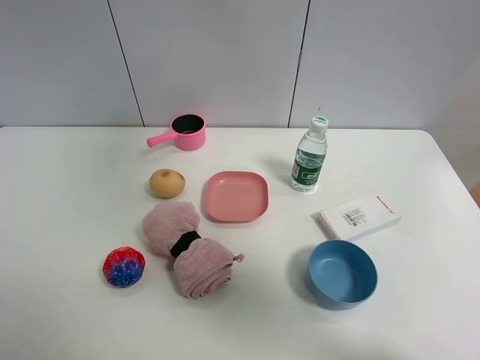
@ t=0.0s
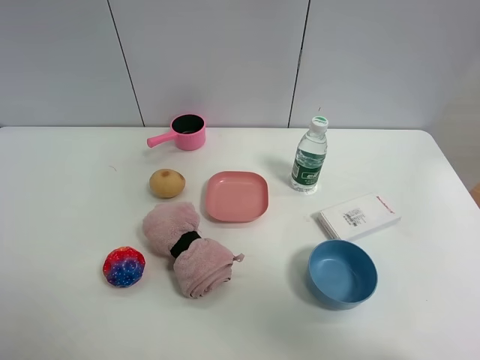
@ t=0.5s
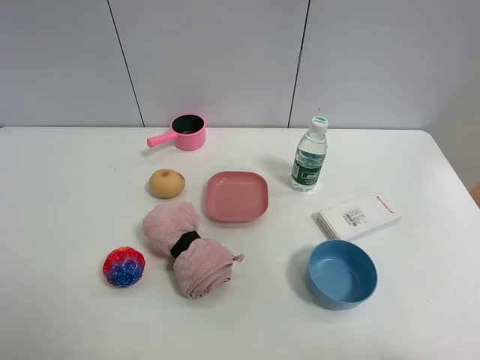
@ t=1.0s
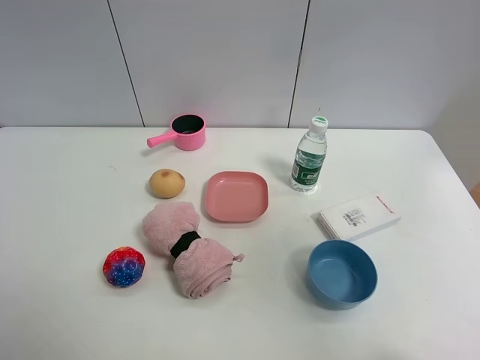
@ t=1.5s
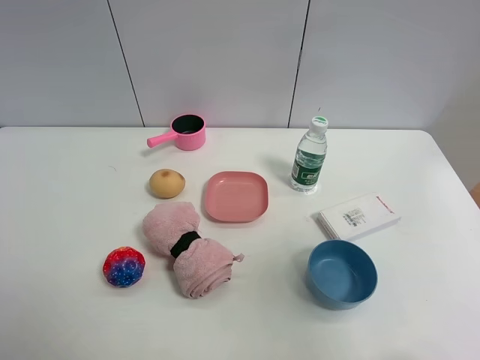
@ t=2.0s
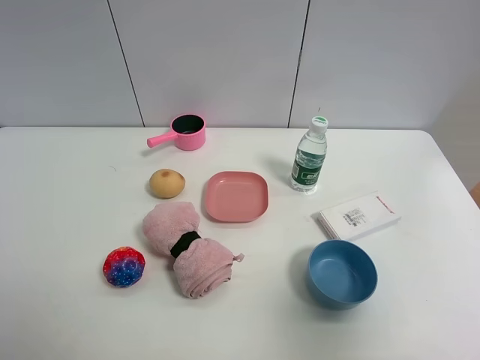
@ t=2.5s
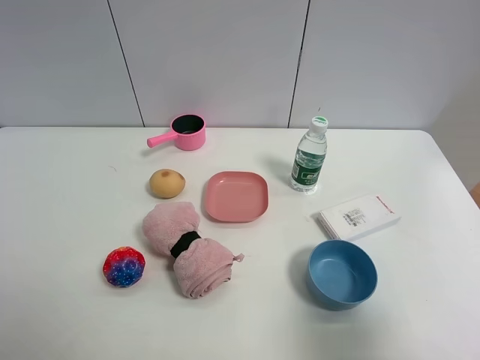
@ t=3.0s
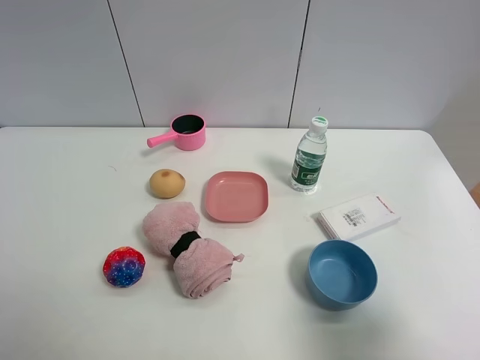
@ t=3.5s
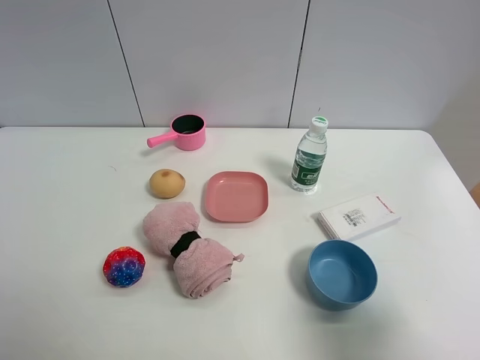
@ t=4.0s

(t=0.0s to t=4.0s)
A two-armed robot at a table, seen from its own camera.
Task of the whole recording: the gripper move the object.
t=0.0s - t=2.0s: The right gripper goes some 35 cm backward, to the right and downward.
t=2.0s - t=4.0s: The right gripper goes roughly 15 cm downward.

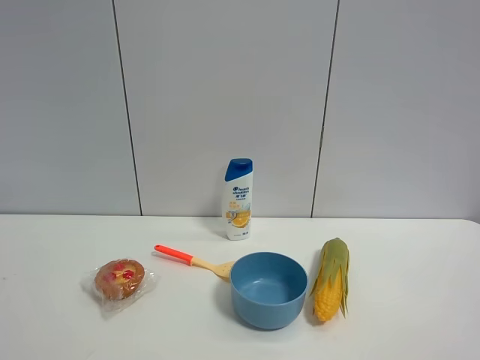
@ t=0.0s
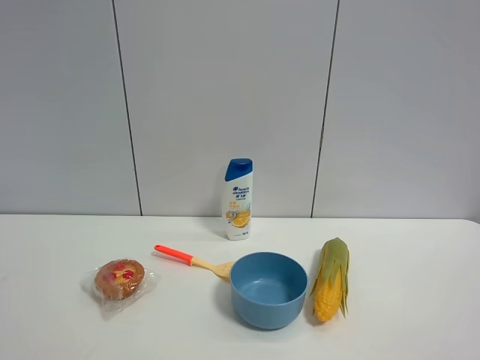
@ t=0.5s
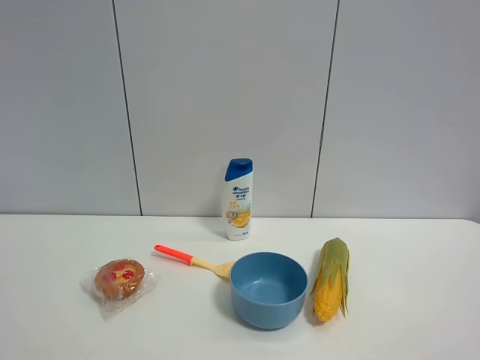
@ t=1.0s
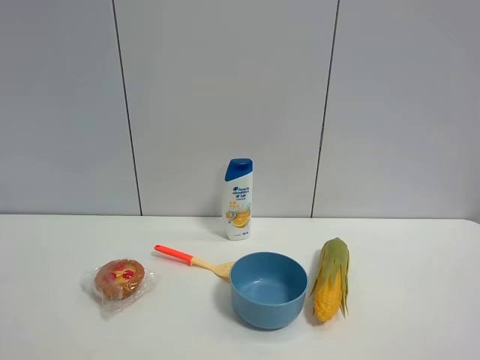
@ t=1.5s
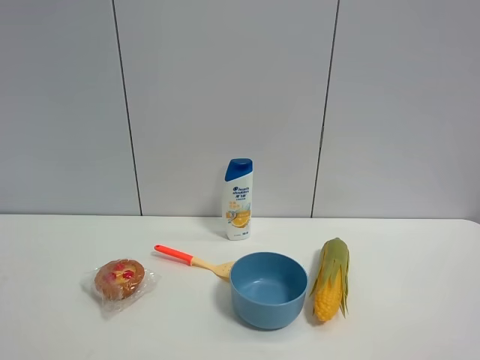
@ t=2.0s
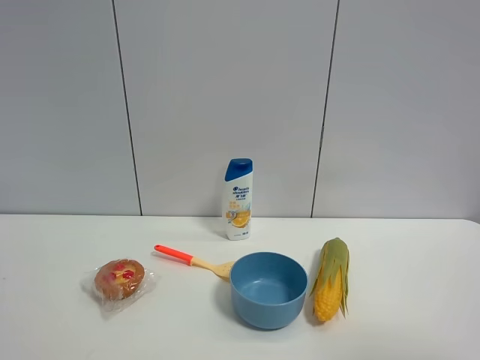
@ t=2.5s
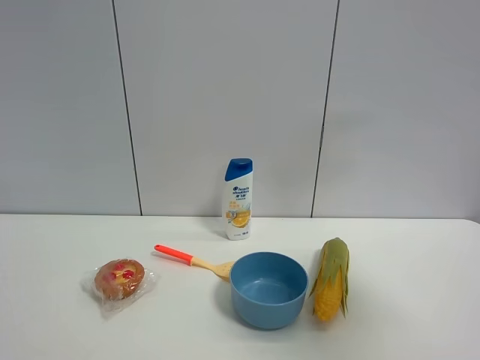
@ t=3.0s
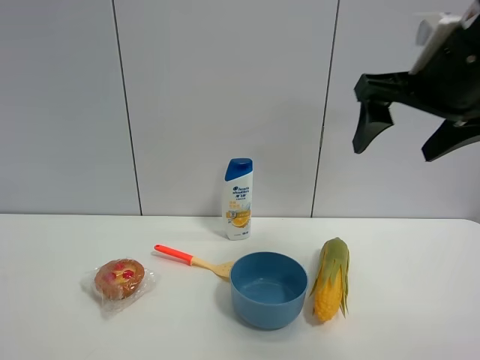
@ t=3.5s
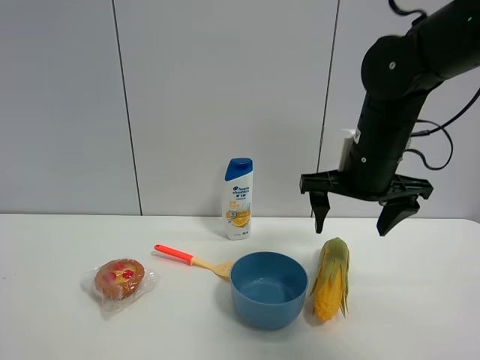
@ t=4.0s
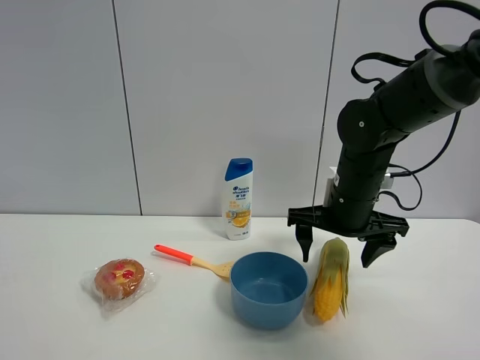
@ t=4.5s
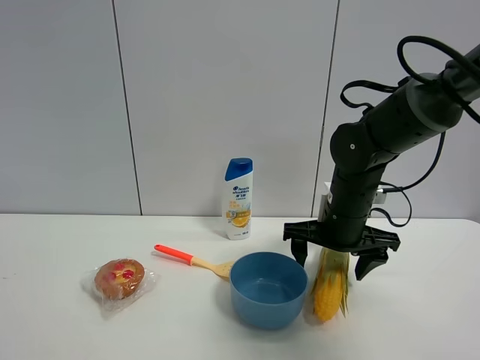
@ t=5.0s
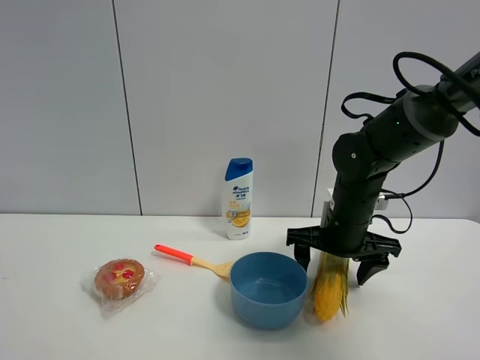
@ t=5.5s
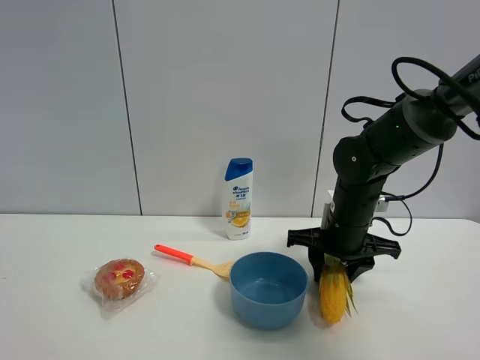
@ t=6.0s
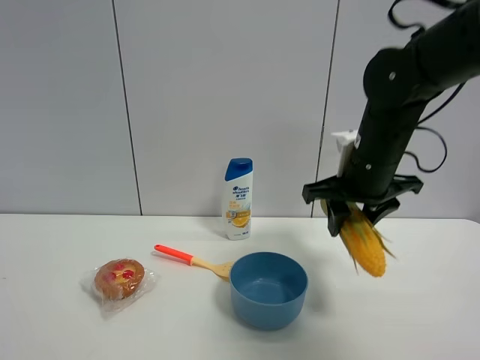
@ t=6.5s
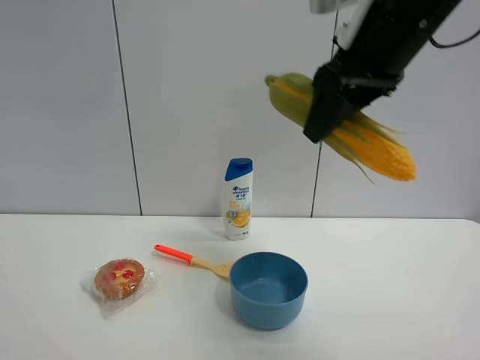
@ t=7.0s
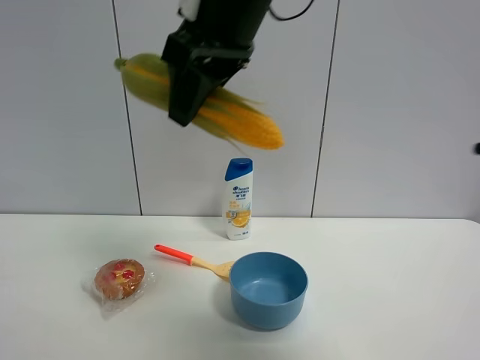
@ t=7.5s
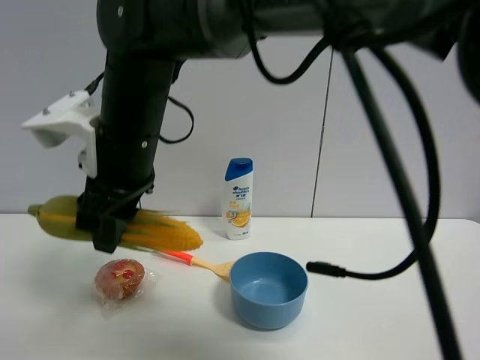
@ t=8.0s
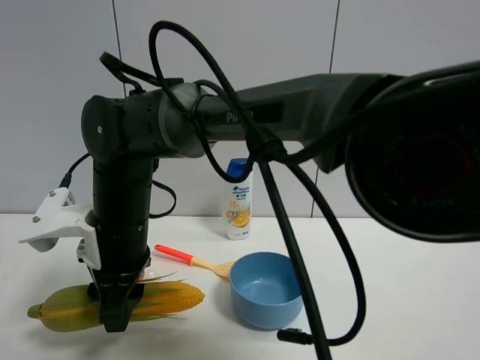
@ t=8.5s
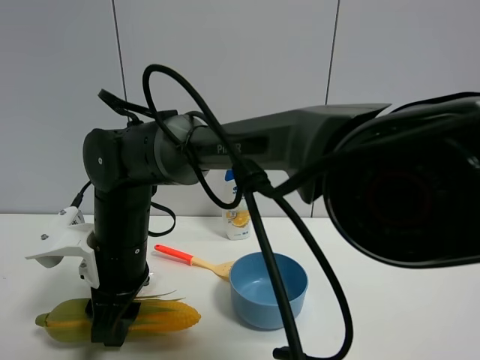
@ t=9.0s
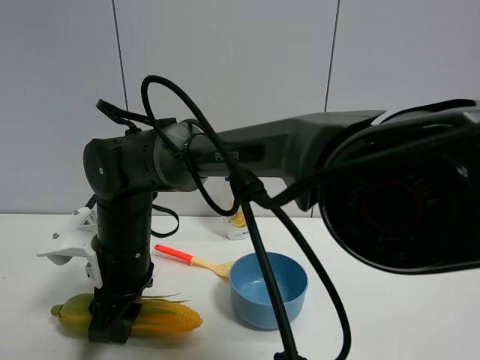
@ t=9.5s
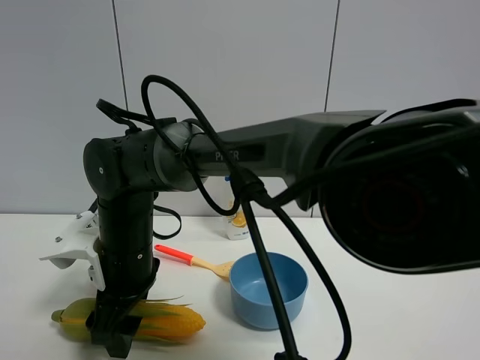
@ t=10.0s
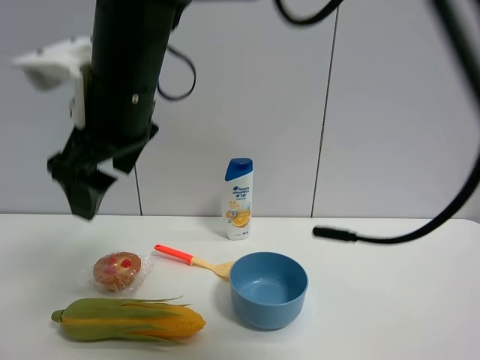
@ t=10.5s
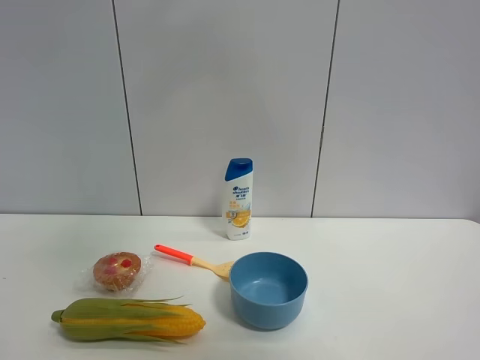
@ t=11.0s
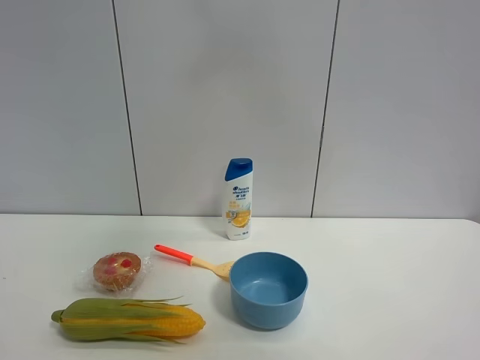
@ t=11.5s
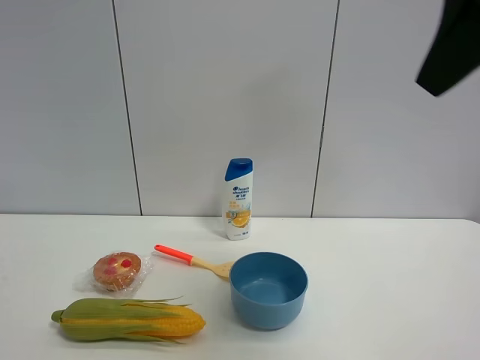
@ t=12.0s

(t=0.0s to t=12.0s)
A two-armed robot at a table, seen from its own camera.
Task of the whole recording: the gripper move the object.
Step, t=0.0s - t=6.0s: Grasp the corn with the right gripper.
Step, t=6.5s - t=10.0s: Place the corn on the table with the right gripper.
t=0.0s - t=2.0s: Both grippers stay put.
t=2.0s - t=4.0s: The right gripper goes approximately 40 cm forward and to the left.
t=4.0s - t=6.0s: The right gripper travels downward by approximately 10 cm, and closes its fingers.
t=6.0s - t=8.0s: The right gripper goes about 30 cm to the left and upward.
t=8.0s - t=10.0s: The right gripper is displaced downward by some 10 cm, and opens its fingers.
t=10.0s - t=12.0s: The right gripper is displaced to the right, upward and backward by roughly 50 cm.

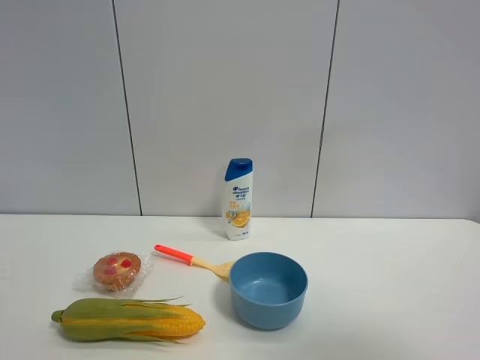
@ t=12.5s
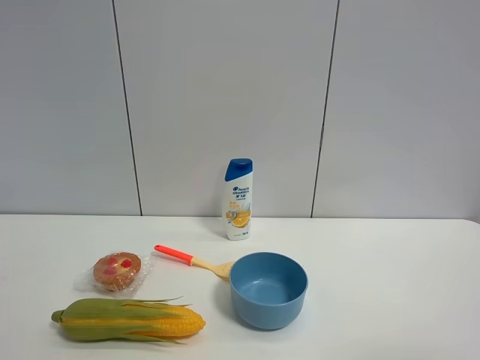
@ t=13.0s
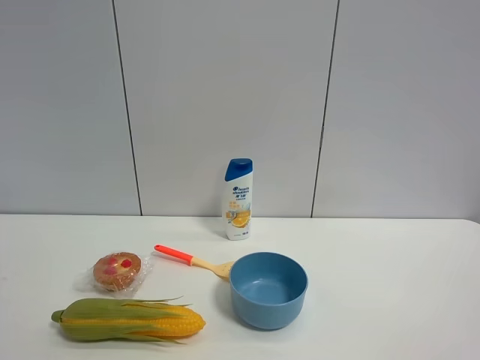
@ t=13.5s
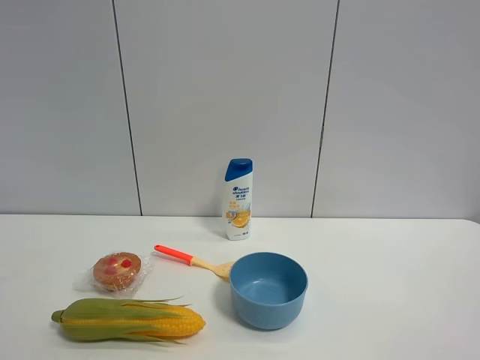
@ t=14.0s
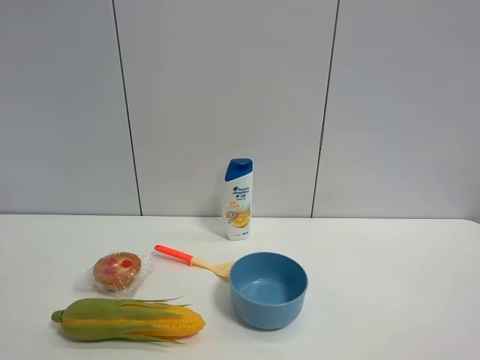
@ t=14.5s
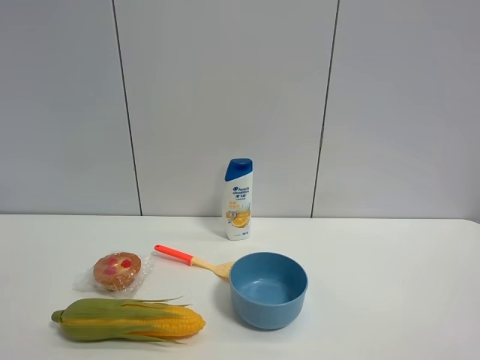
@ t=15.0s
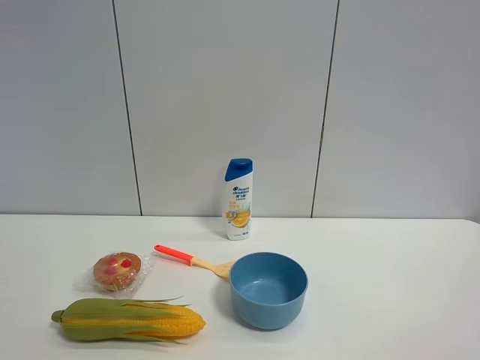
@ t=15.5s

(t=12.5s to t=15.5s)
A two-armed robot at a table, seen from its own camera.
Task of the whole recording: the gripper move the object.
t=12.5s - t=14.0s: The right gripper travels downward and backward by about 10 cm.

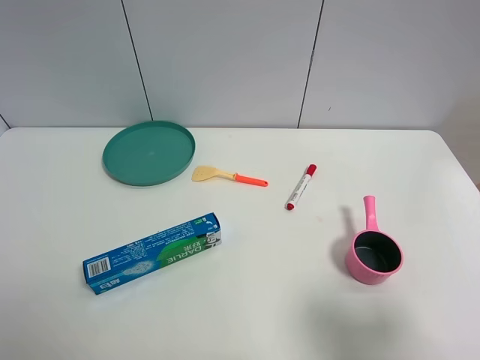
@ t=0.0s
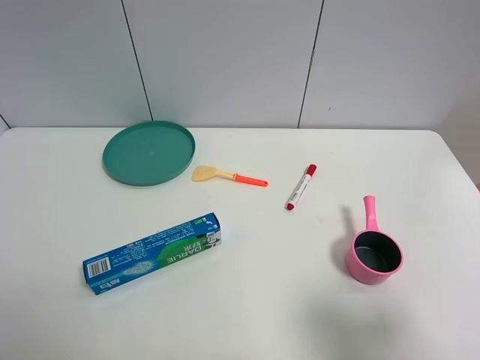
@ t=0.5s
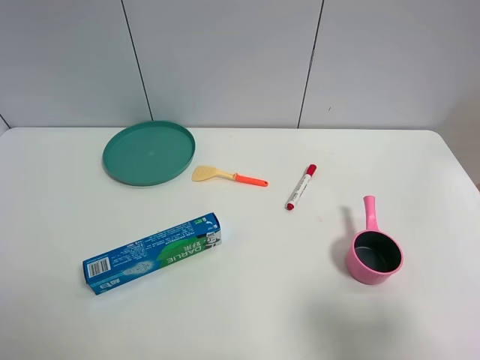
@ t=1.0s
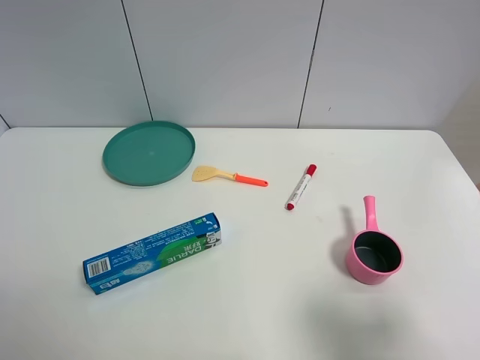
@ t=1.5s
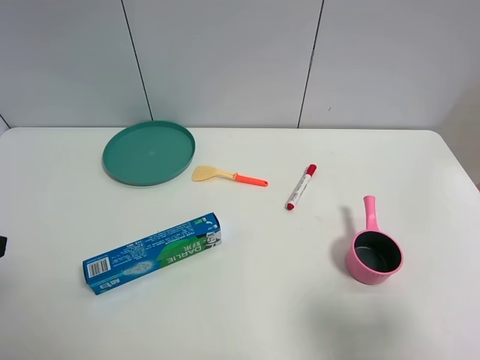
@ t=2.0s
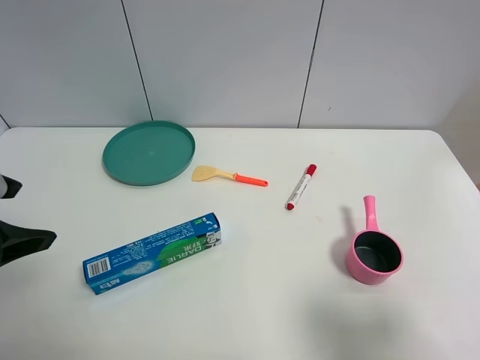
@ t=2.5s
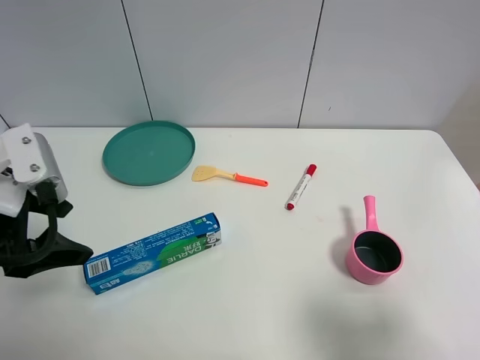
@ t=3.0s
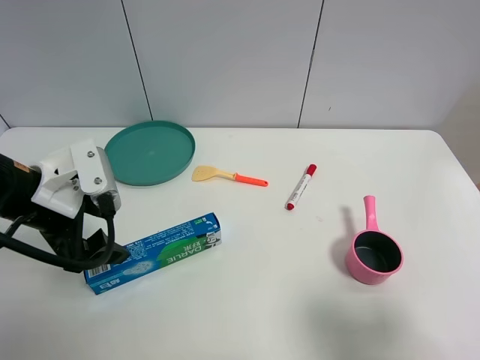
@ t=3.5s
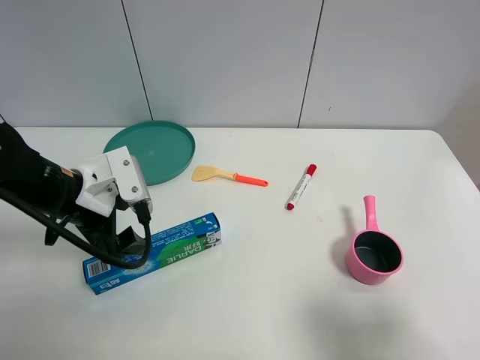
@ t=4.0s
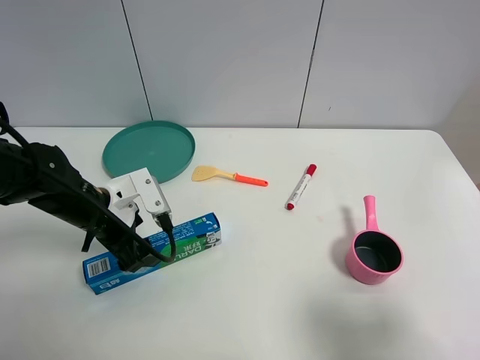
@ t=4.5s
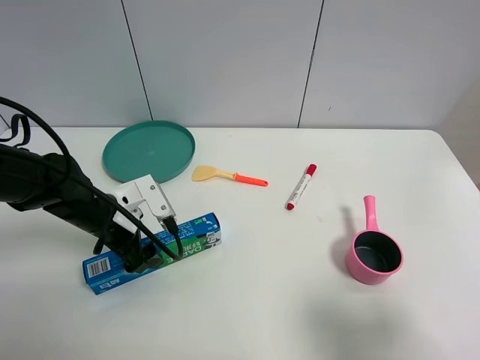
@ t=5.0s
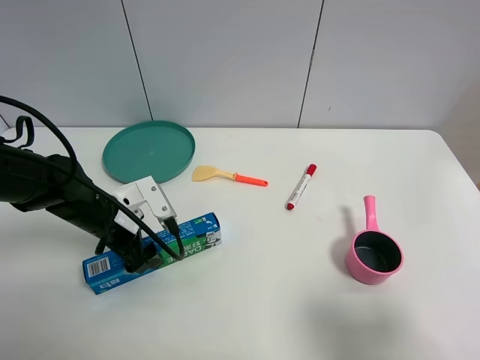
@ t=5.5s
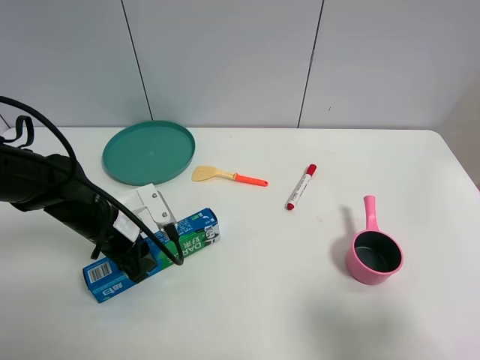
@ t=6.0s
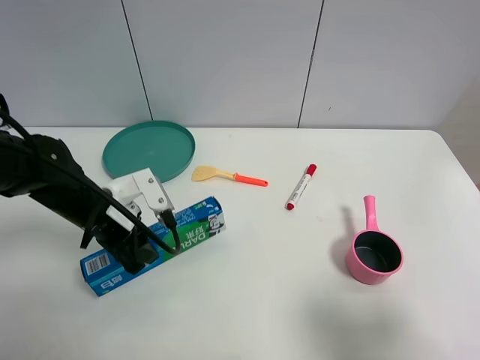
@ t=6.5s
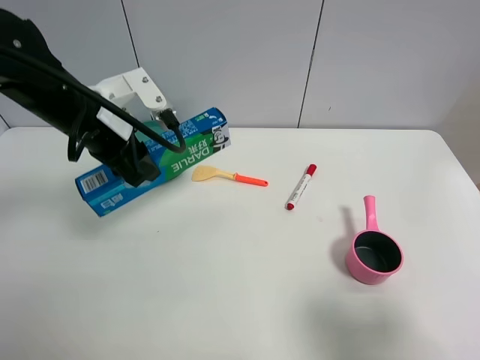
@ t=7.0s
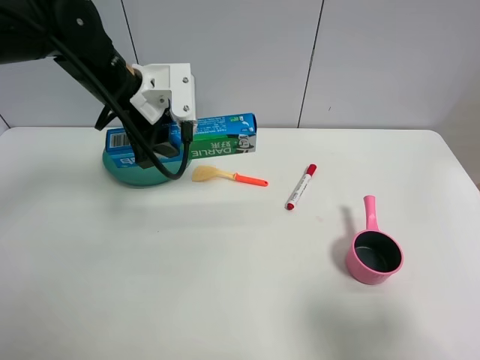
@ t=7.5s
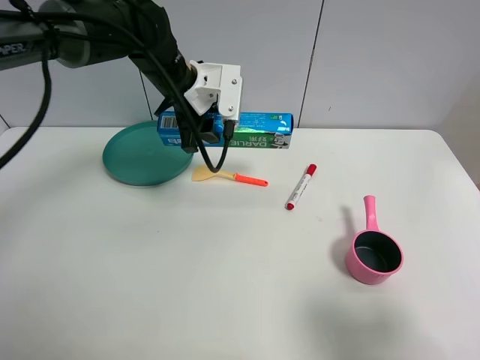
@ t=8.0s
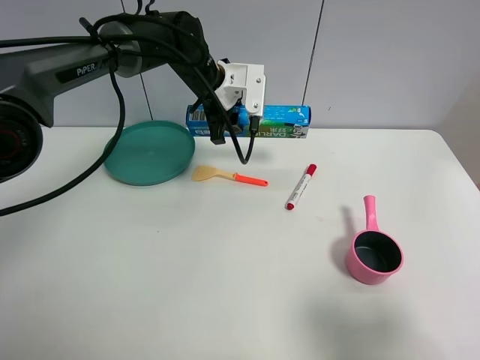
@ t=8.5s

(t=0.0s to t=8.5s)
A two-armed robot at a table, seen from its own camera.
Task of the whole recording: the gripper move the object.
Step, t=0.0s - t=6.0s: Grasp the toothpaste with the left gripper.
t=2.0s - t=4.0s: The left gripper travels forward, downward and to the right by roughly 20 cm.
t=4.0s - t=6.5s: The left gripper closes up.
t=6.5s - t=8.5s: The left gripper shifts approximately 25 cm forward and to the right.
